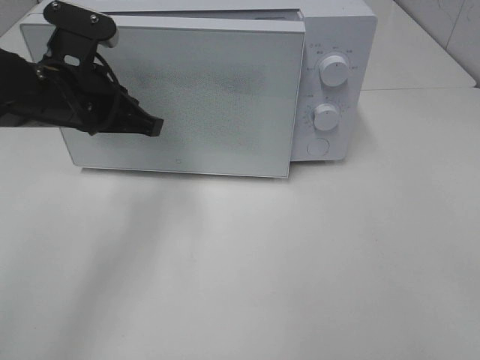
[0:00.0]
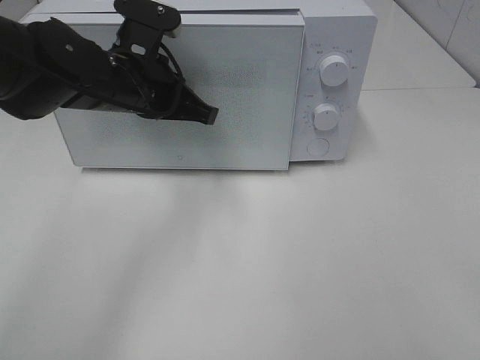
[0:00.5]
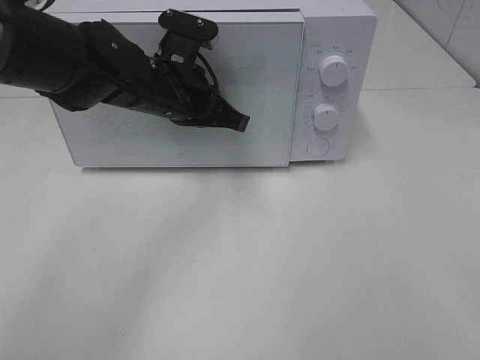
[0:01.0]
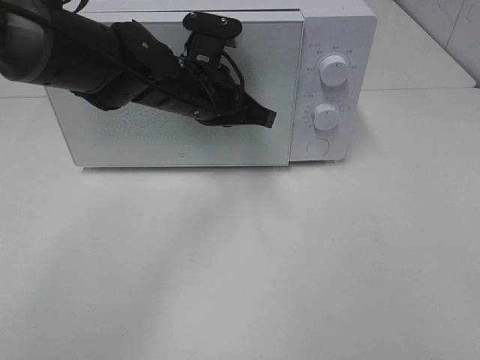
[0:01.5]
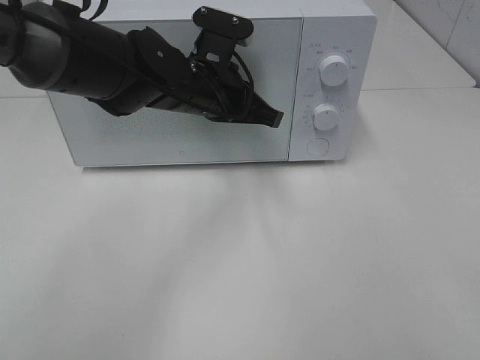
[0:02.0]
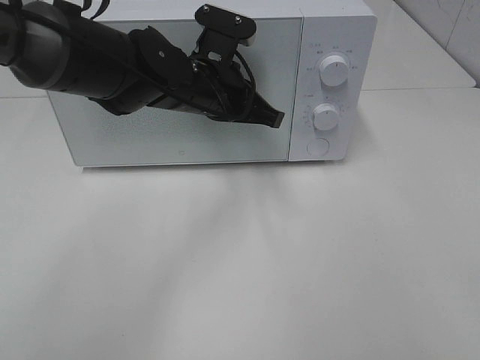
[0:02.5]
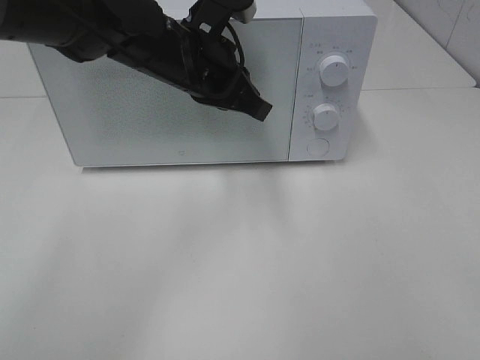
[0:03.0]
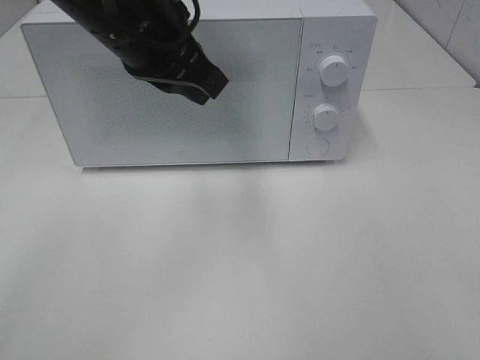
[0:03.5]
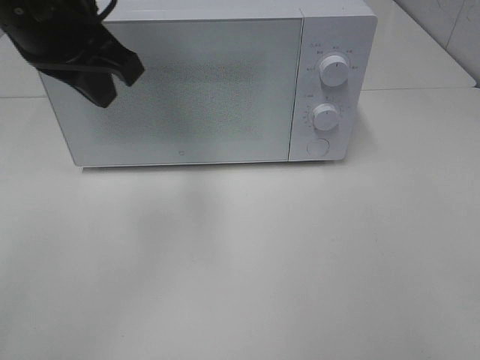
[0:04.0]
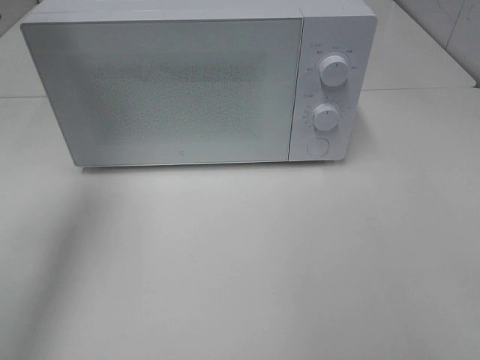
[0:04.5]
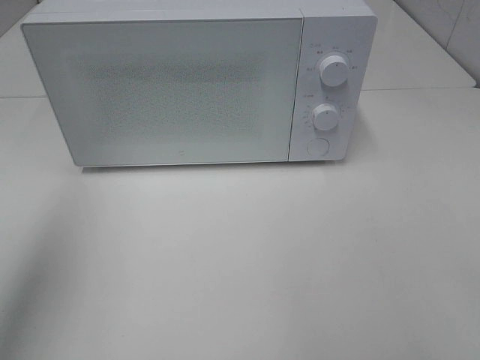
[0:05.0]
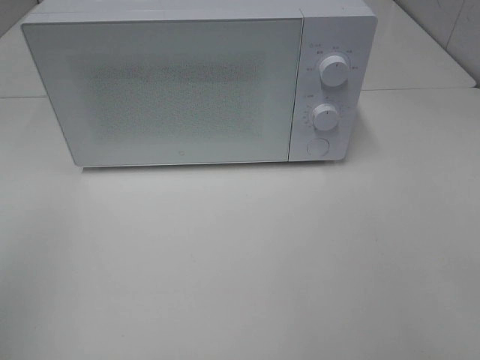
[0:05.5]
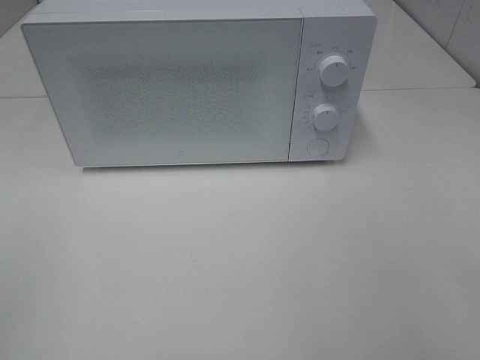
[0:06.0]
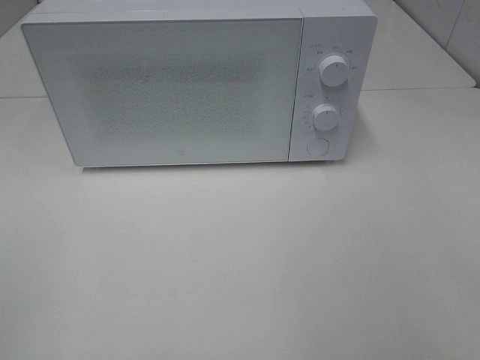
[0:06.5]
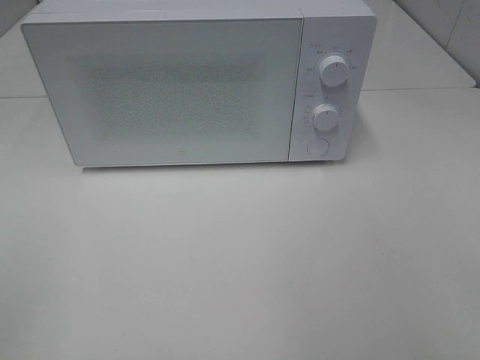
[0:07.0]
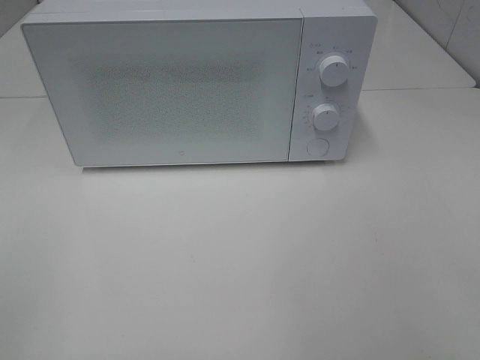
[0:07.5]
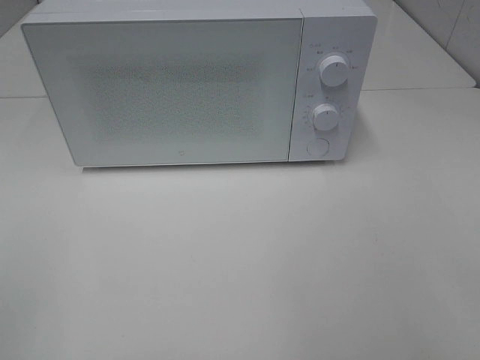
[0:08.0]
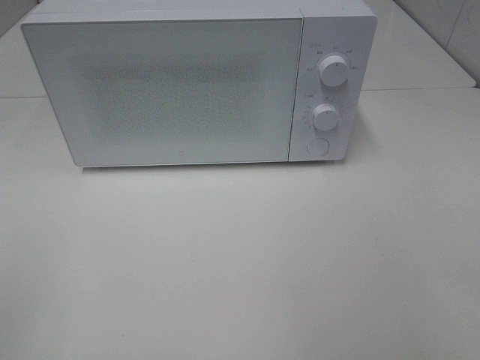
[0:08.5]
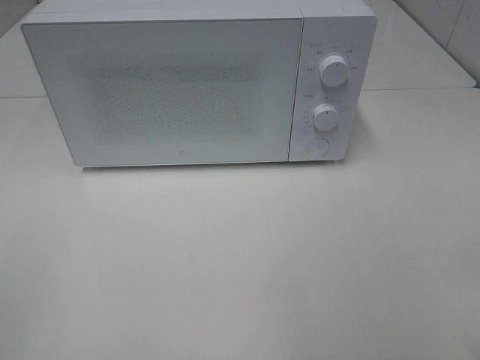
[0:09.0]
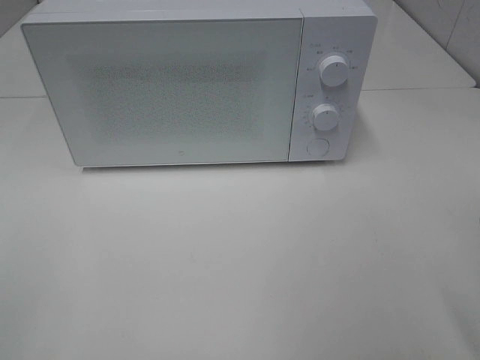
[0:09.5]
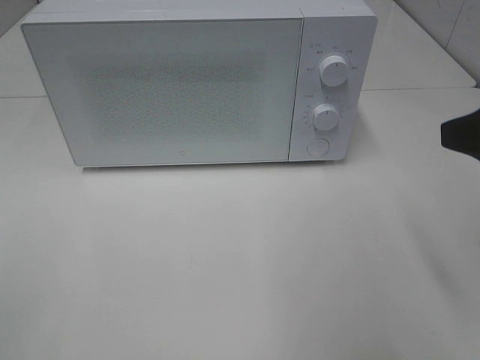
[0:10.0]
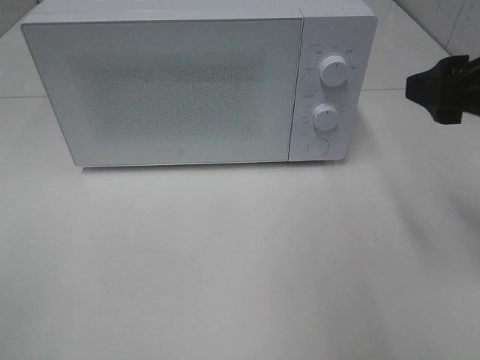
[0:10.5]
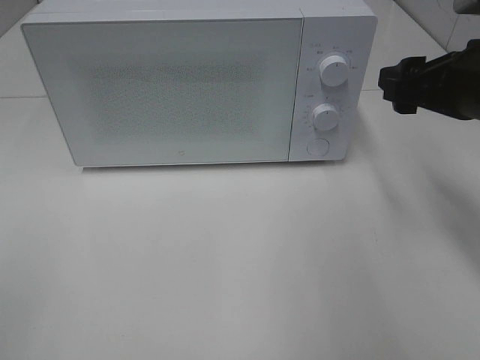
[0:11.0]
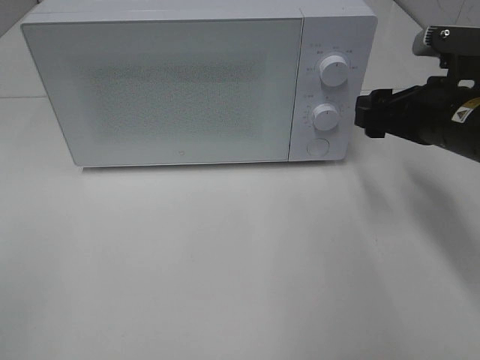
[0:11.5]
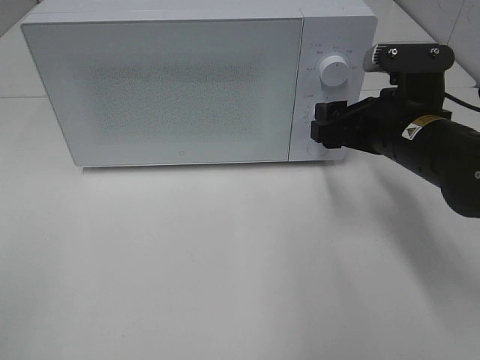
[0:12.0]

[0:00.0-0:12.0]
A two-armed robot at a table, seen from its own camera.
Task of the whole recording: Heat the burger.
Step, 0:00.0 to 0:02.5: Left hand: close the microwave door.
0:00.0 to 0:02.0: The left gripper shifts approximately 15 cm to the right and forward, and opens up.
0:02.0 to 0:04.0: The left gripper heads upward, to the left and backward, covering some 20 cm, and closes.
0:04.0 to 0:06.0: The left gripper moves backward and to the left, approximately 40 cm.
0:08.0 to 0:10.0: The right gripper travels forward by approximately 15 cm.
0:10.0 to 0:12.0: The right gripper moves forward, downward and to the left, roughly 20 cm.

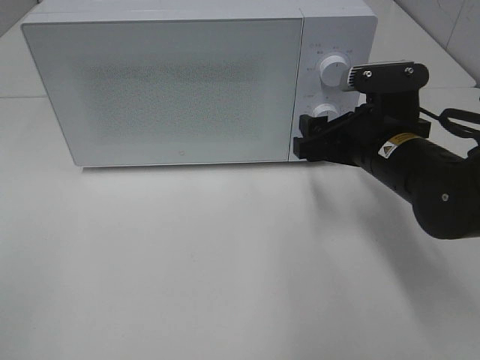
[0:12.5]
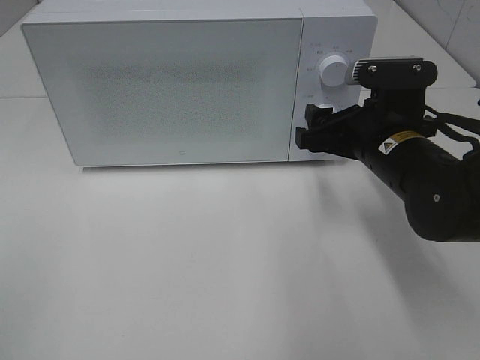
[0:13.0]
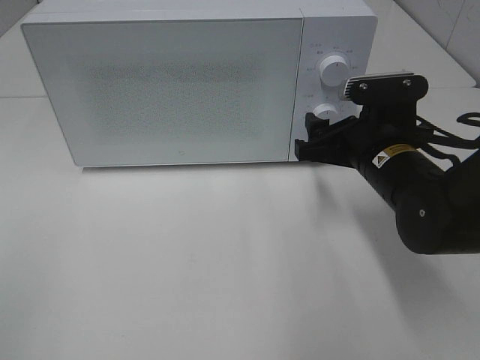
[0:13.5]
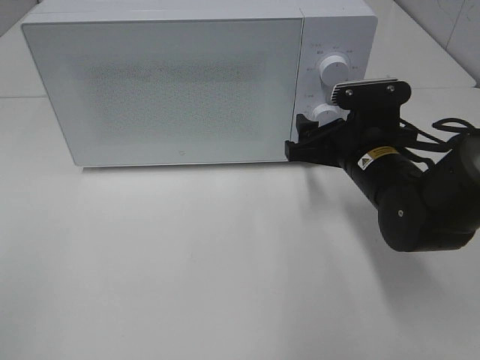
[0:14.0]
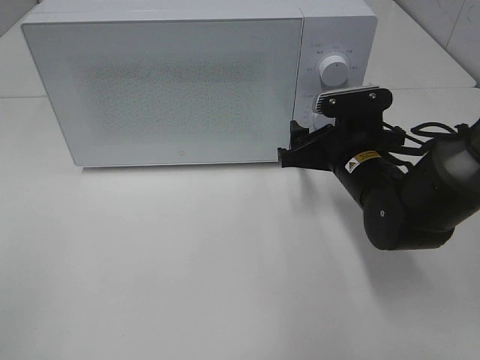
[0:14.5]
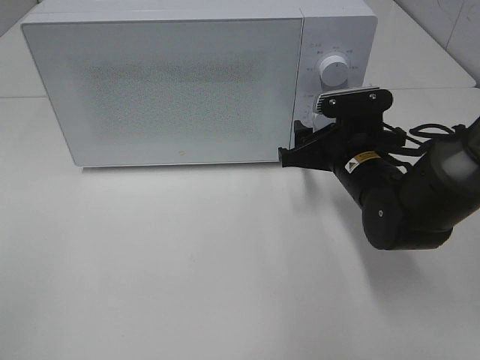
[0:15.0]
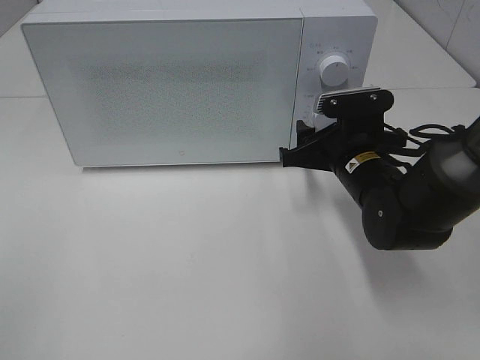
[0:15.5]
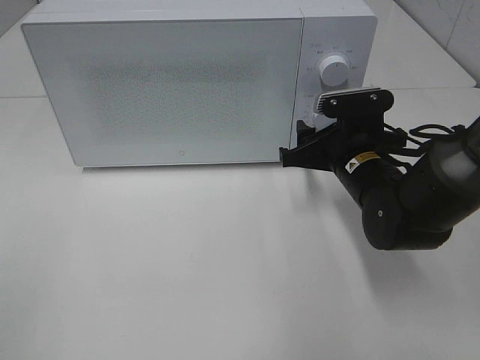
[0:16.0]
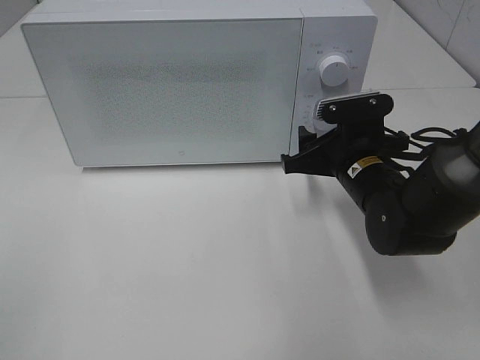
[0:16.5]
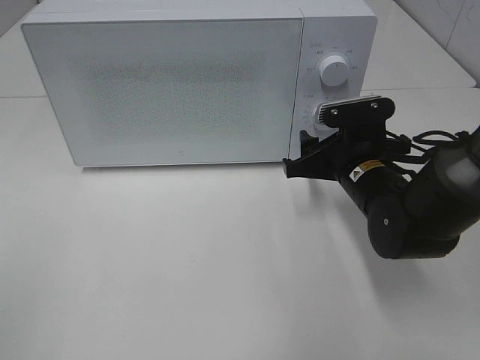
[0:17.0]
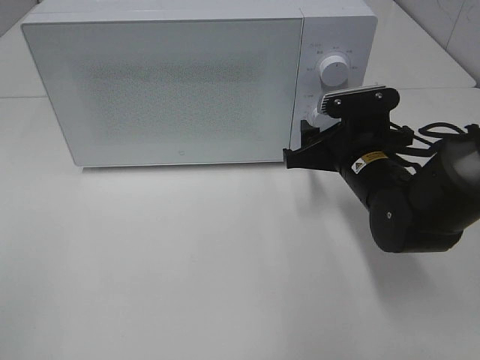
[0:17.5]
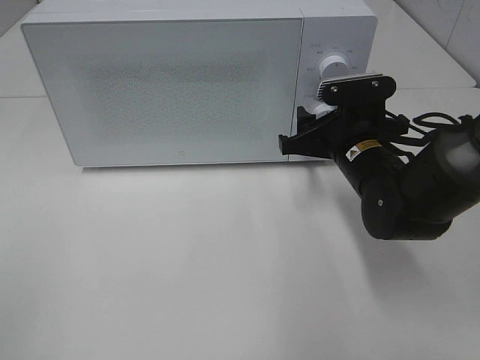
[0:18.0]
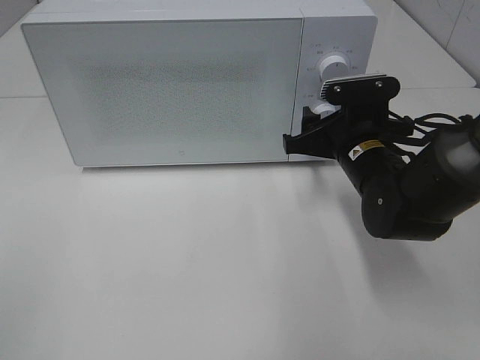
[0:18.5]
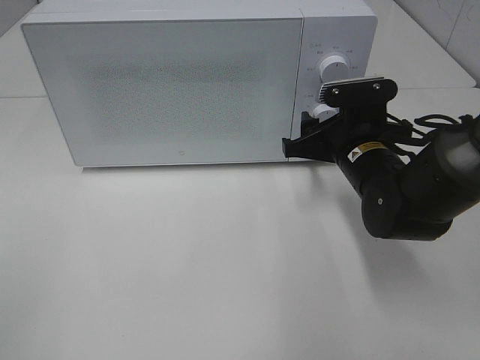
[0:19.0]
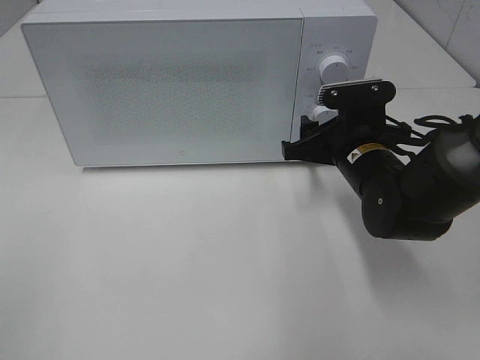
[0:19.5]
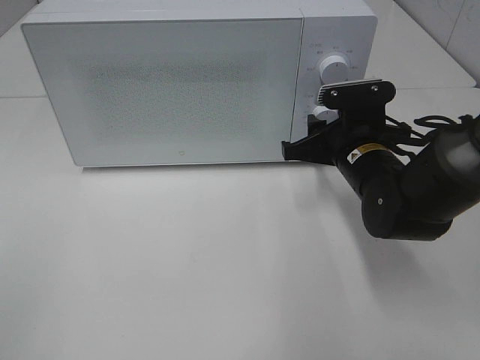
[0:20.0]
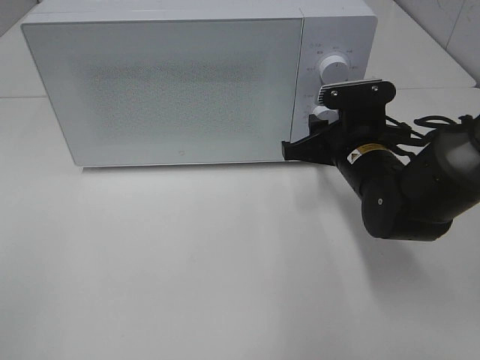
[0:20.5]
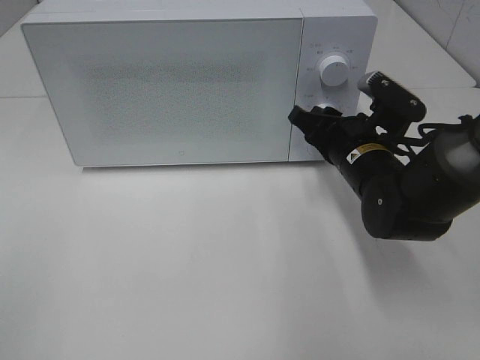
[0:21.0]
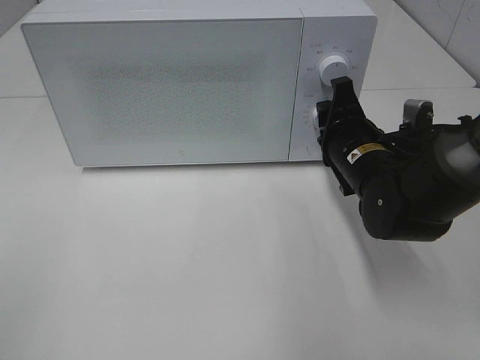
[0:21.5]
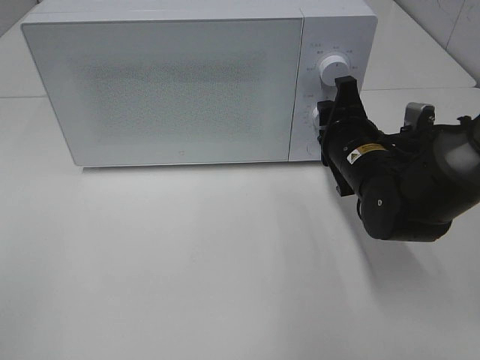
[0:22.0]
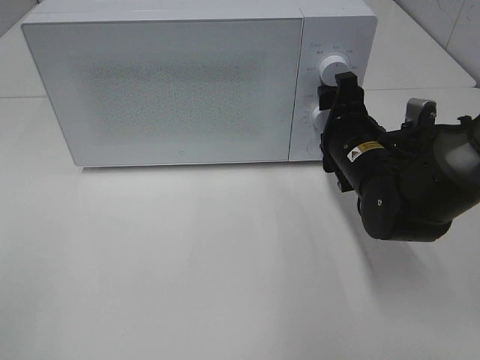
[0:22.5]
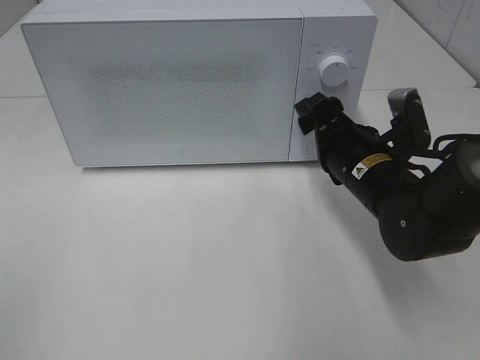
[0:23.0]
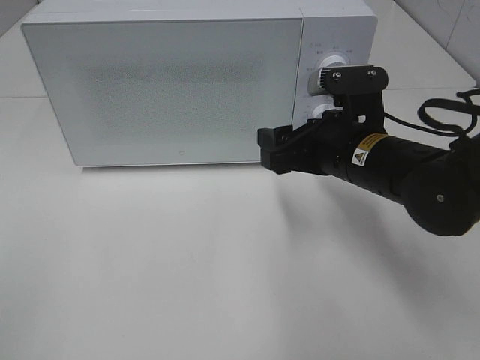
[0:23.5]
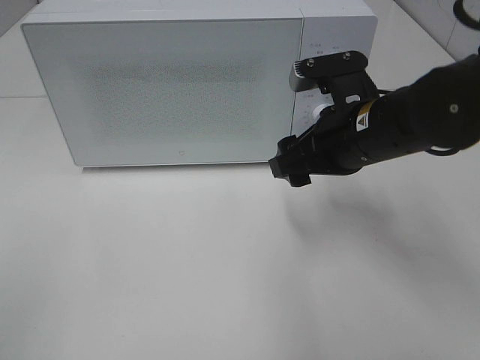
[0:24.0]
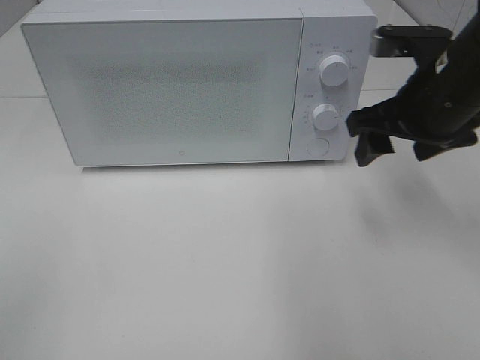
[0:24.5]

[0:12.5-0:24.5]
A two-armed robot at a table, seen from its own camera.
Task of the whole recording: Heat the burger.
Step, 0:12.5 to 0:22.0: Right hand: twist timer button.
0:12.5 to 0:14.5: The right gripper shifts by about 5 cm.
0:14.5 to 0:16.5: The two grippers keep their place.
0:16.5 to 0:18.5: The grippers move only a little.
0:18.5 to 0:20.5: Both grippers stay about where they are.
0:20.5 to 0:22.5: The right gripper opens.
0:22.5 to 0:24.5: The right gripper travels upward and to the right by about 10 cm.

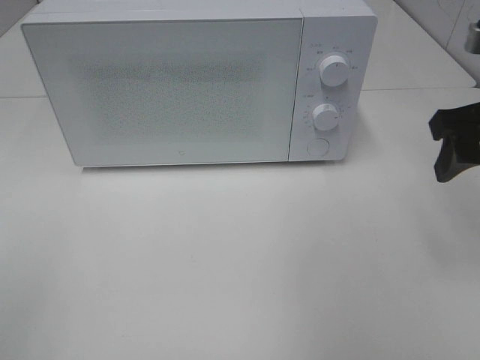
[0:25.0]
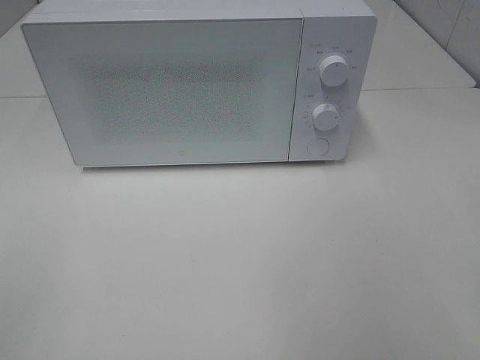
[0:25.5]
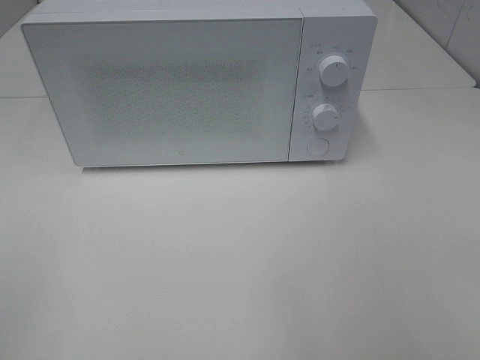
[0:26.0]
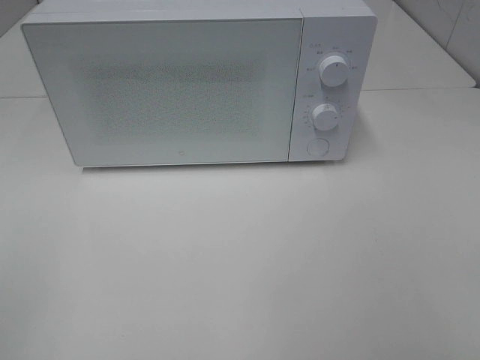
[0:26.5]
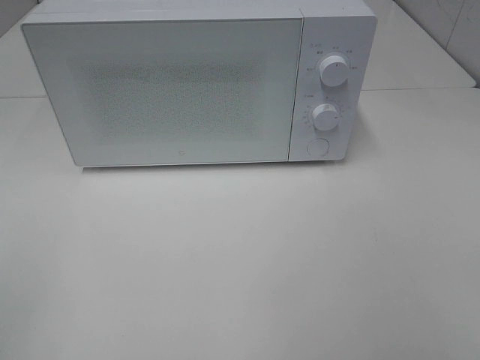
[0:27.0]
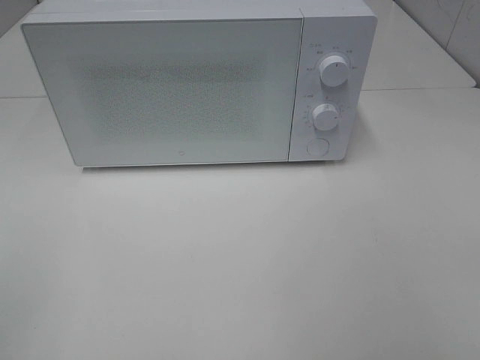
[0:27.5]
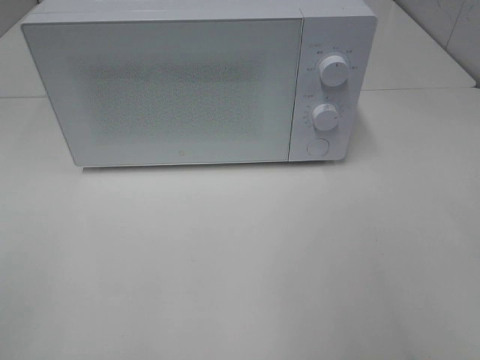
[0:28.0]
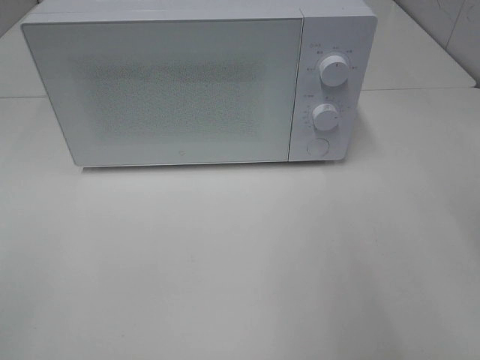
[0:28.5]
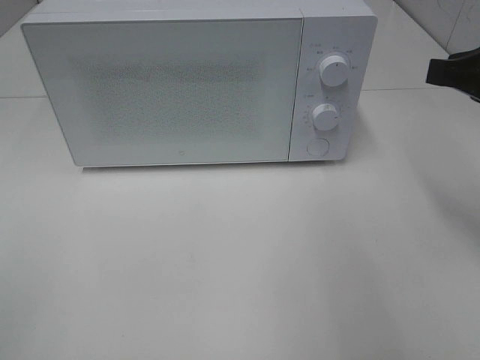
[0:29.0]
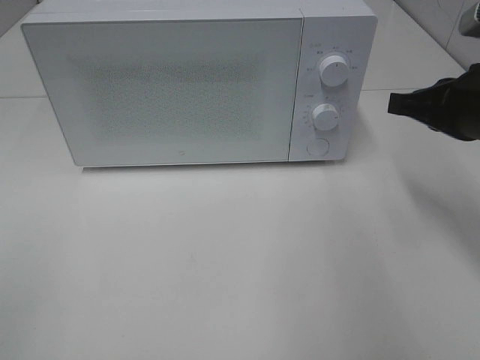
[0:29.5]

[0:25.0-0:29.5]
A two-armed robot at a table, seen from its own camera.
Task of the whole recording: Heat the burger.
0:25.0 to 0:27.0: The right gripper heads backward, covering roughly 25 cm.
0:27.0 to 0:29.5: The right gripper goes approximately 25 cm forward, and closes its fingers.
